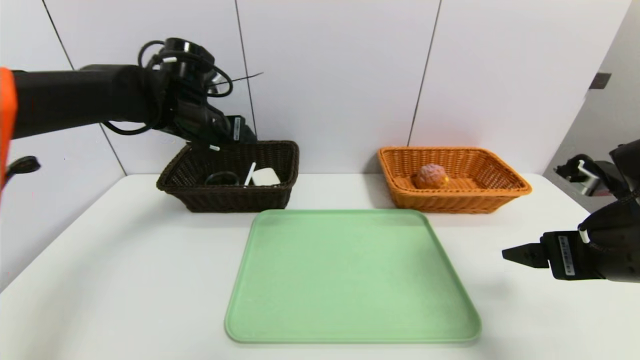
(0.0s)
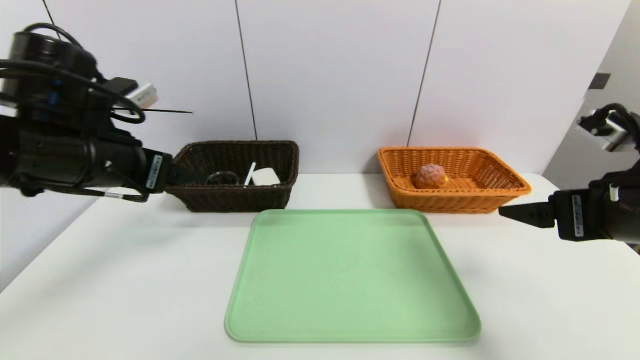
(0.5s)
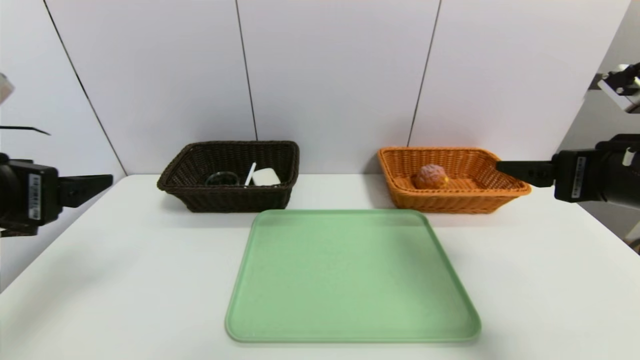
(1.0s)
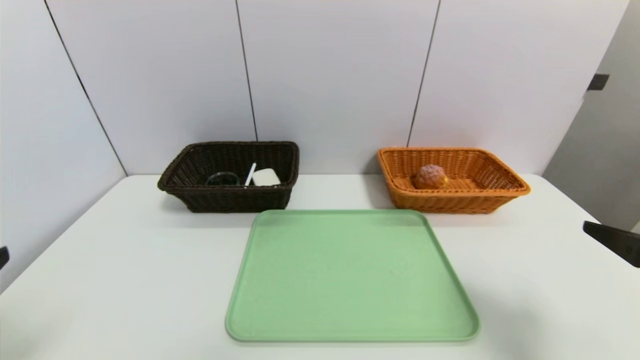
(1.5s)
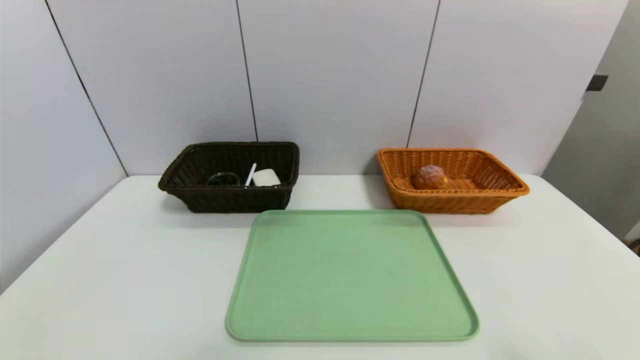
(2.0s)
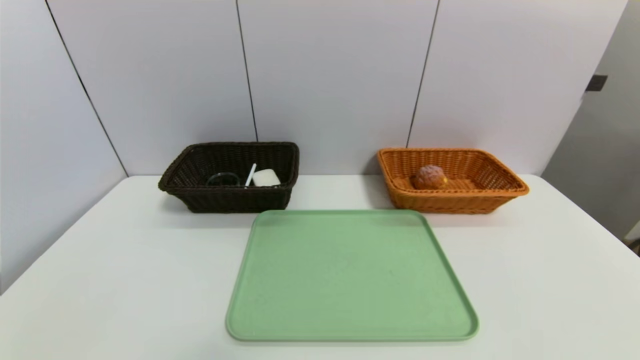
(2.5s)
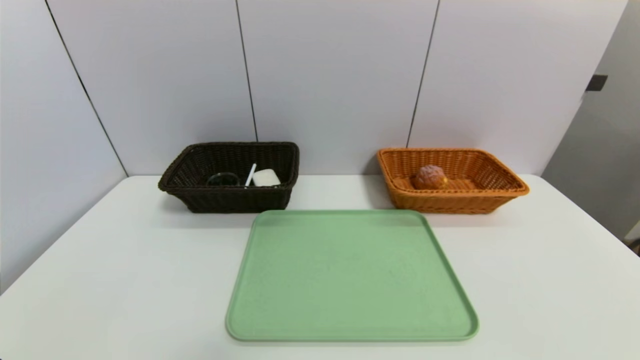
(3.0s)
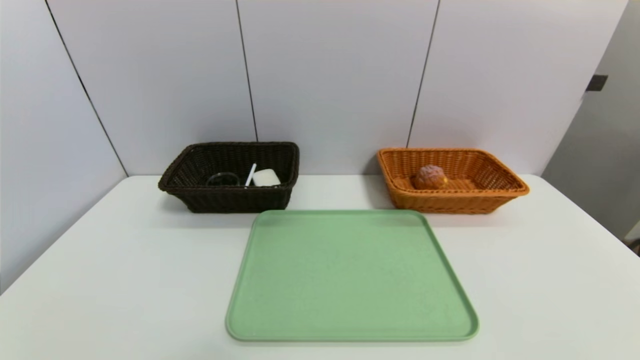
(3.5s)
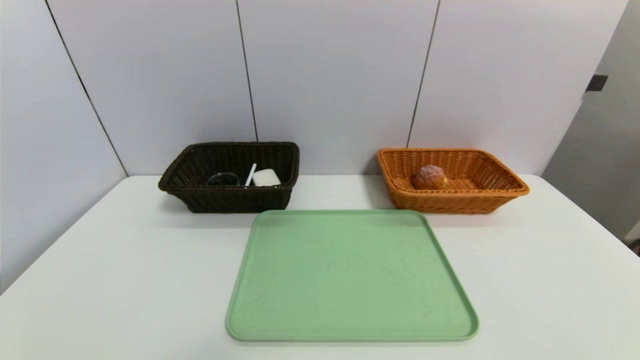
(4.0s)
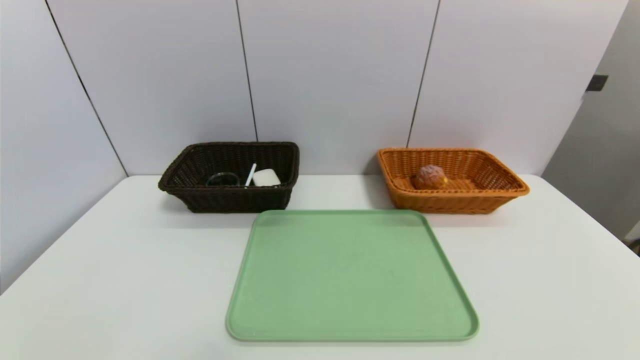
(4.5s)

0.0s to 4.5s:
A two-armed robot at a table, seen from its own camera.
Task of the whole recording: place the food in the right basket with the right gripper, and place the non food items in the left basket with the left gripper.
0.0s to 2.0s: The right gripper moves backward, about 15 cm; the left gripper travels backward by roughly 40 cm.
